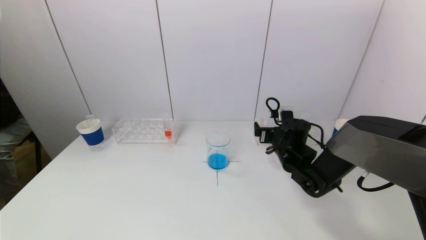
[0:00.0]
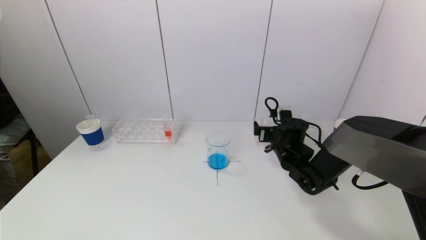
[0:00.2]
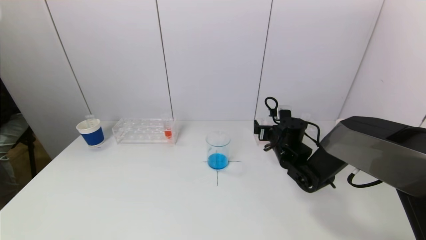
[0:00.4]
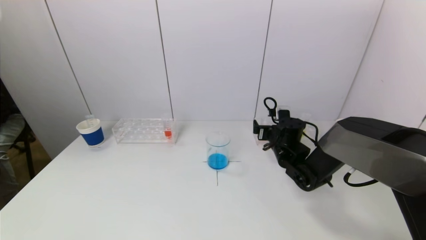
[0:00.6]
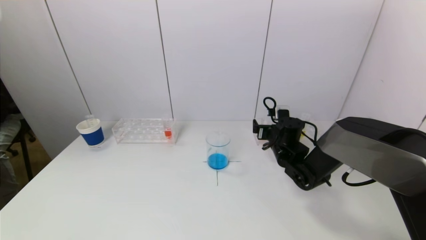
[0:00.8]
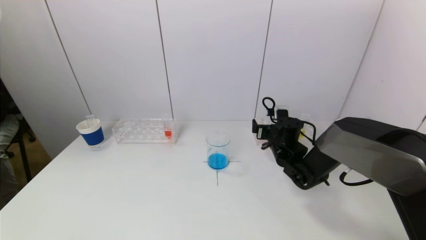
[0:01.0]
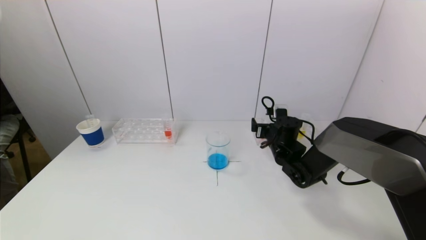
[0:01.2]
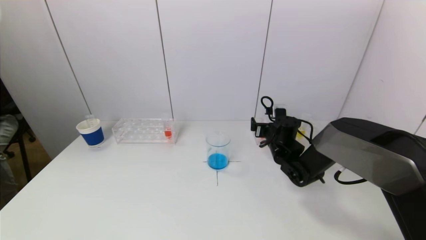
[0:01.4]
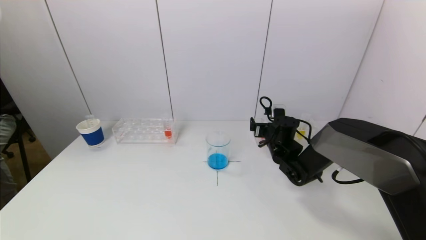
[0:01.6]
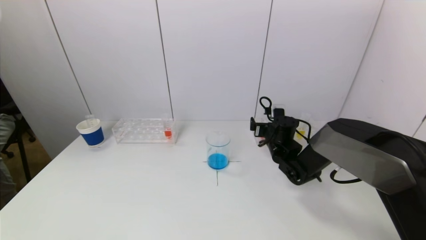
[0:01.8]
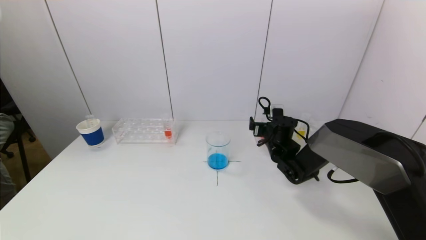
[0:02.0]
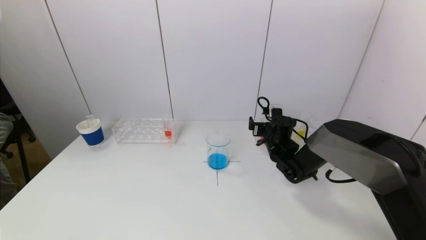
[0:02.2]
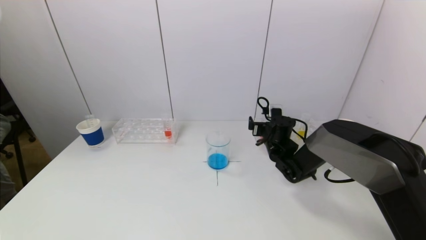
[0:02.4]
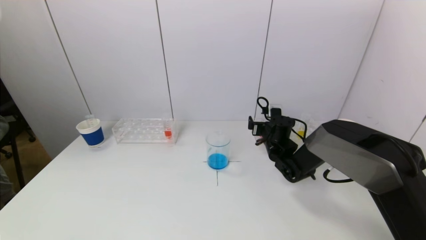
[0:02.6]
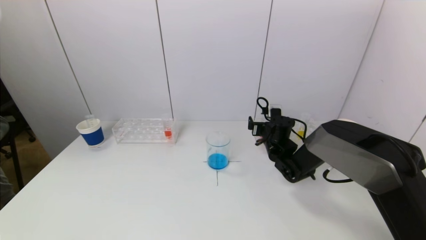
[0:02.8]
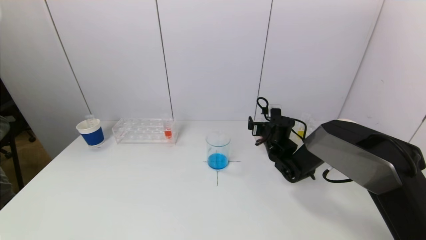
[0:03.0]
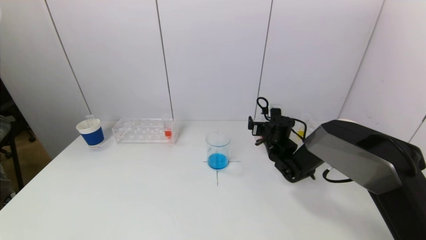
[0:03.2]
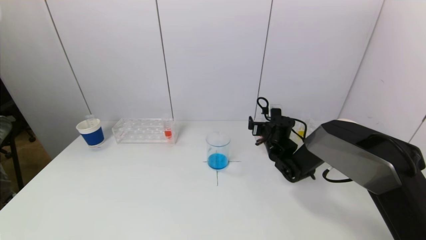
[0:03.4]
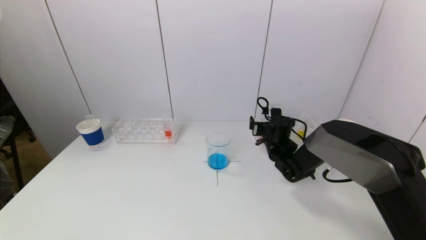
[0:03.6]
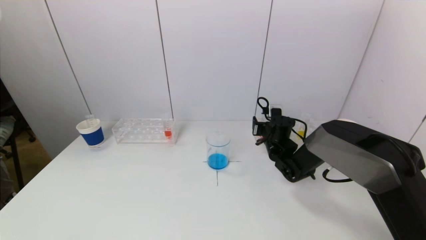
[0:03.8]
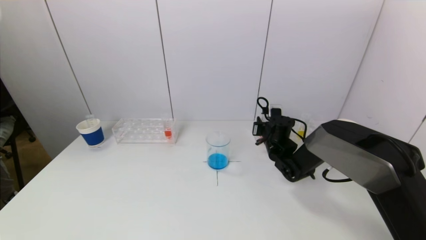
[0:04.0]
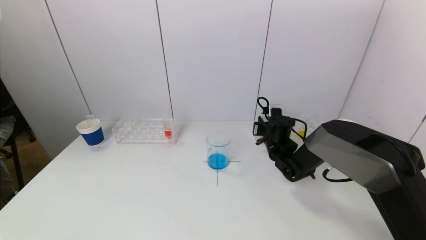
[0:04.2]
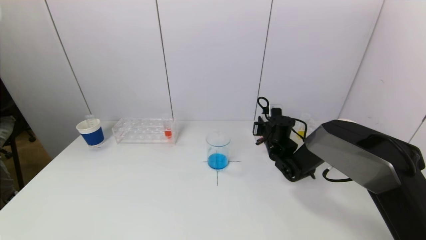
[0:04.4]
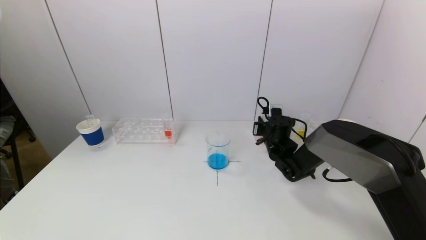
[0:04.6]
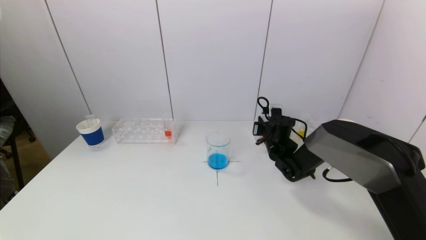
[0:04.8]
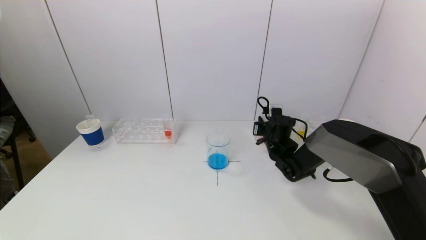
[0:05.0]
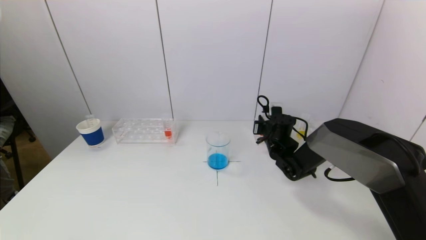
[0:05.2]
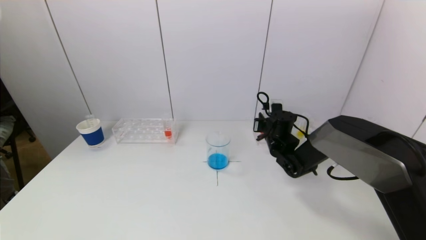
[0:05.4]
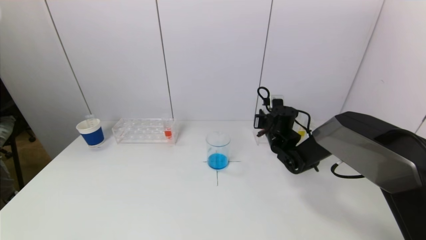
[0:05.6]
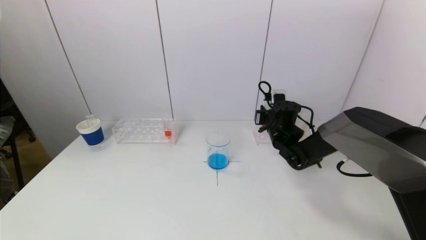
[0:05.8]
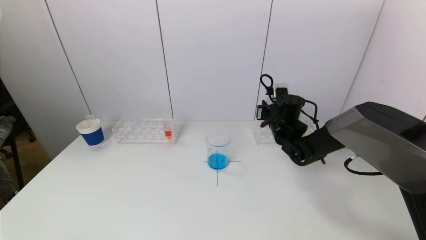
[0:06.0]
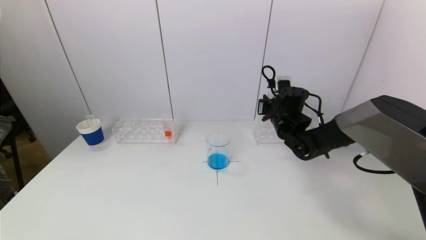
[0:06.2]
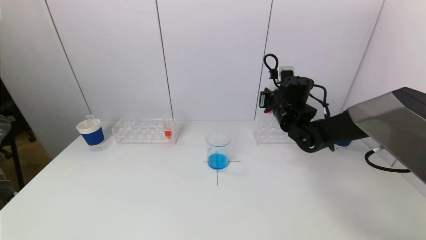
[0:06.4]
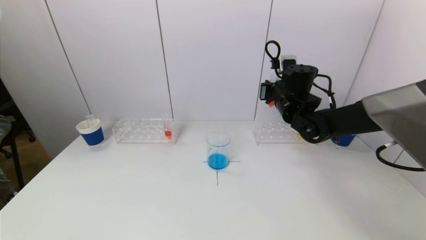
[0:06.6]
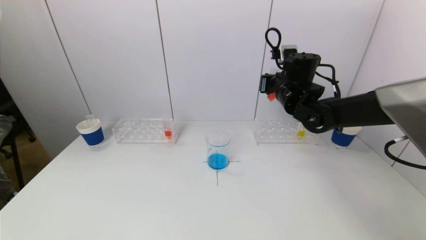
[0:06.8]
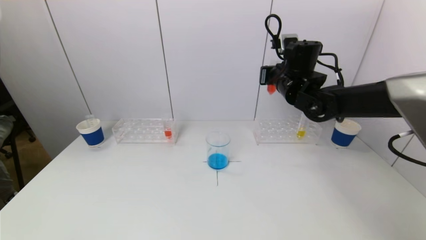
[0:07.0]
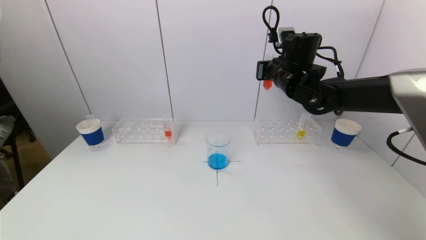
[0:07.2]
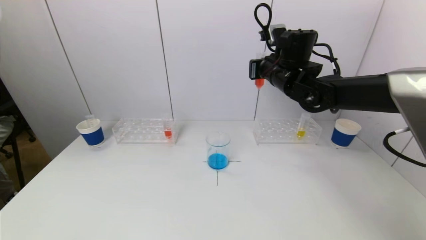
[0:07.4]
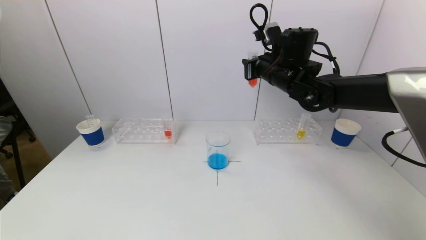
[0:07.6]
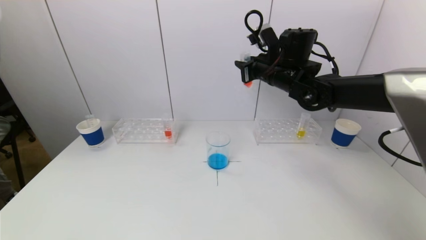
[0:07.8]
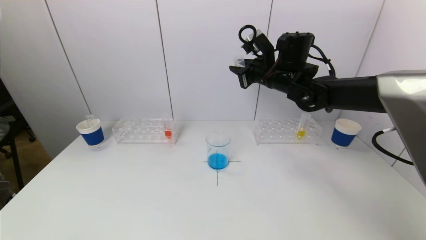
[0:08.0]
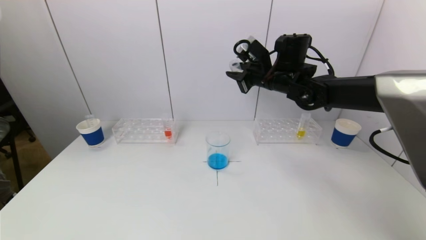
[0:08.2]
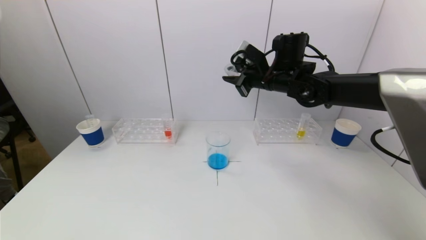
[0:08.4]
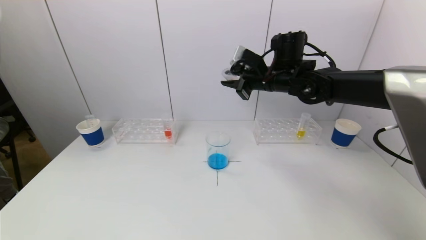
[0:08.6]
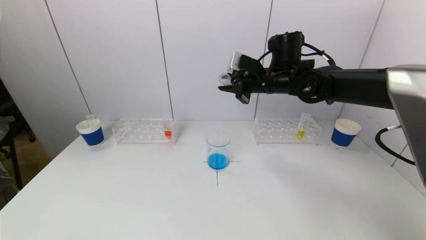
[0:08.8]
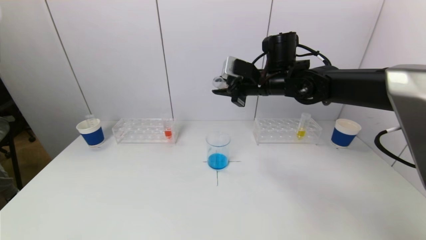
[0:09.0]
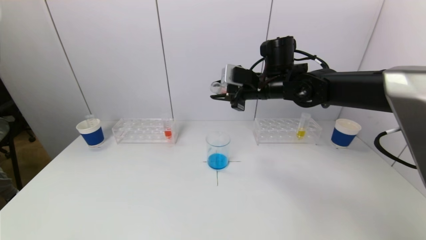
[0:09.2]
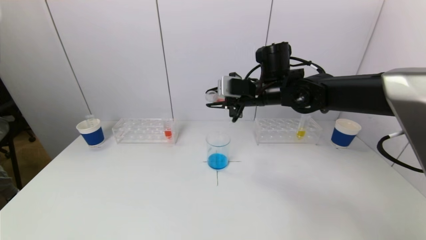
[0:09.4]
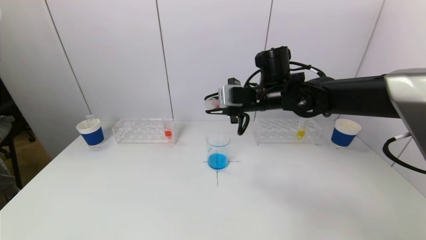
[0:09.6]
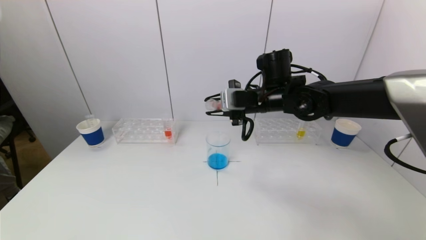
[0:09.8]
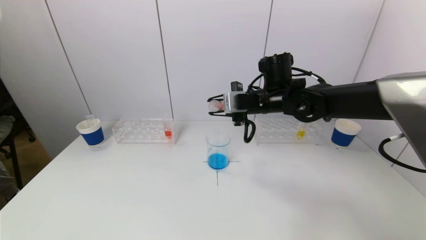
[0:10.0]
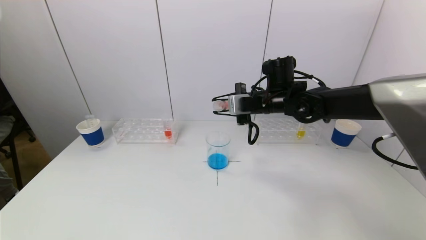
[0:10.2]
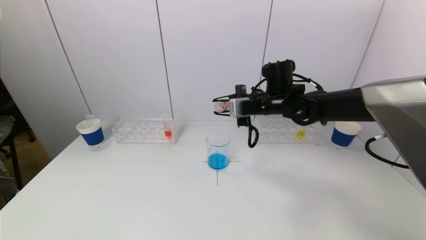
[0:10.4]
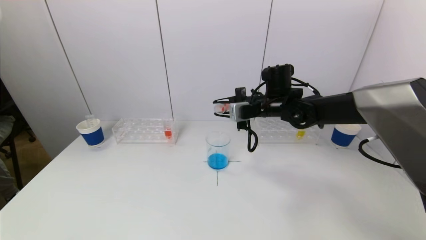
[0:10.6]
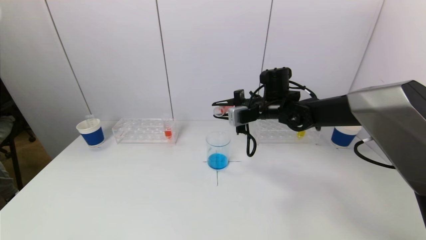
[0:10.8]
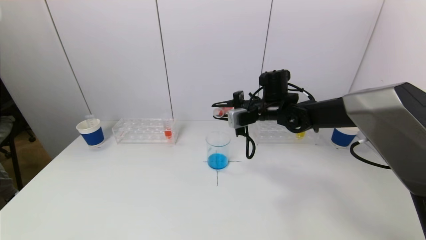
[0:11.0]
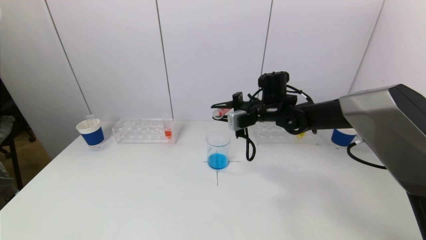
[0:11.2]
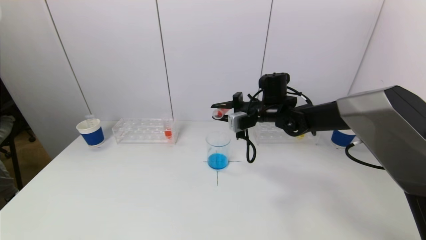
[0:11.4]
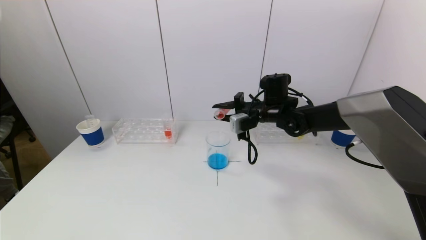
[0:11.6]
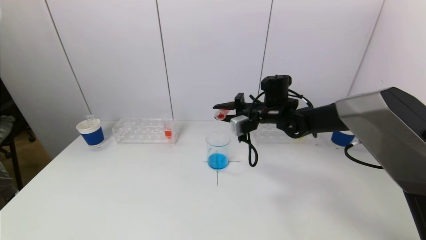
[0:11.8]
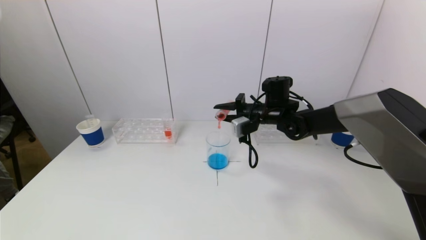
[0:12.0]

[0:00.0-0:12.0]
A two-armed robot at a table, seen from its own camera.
Task of the whole recording: pick up a test tube with pigment on left test tube rack and a test tube with pigment on right test tube rack by grippers and pour them into the beaker.
Step, 0:00.0 to 0:04.2: Grasp the red reagent with the right gripper.
0:00.0 to 0:03.0: There are only small adjustments of the grippers.
0:03.0 to 0:04.4: The right gripper closes its fingers.
0:04.4 to 0:06.0: The right gripper goes roughly 10 cm upward.
0:06.0 to 0:07.6: The right gripper moves upward, roughly 15 cm.
0:09.0 to 0:10.4: The right gripper is displaced downward by roughly 5 cm.
0:10.4 to 0:12.0: The grippers stay close to where they were, moving slightly.

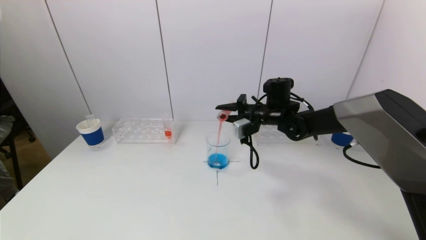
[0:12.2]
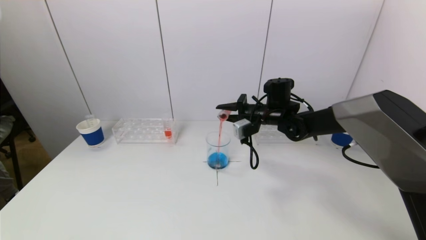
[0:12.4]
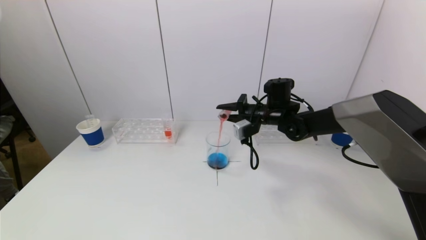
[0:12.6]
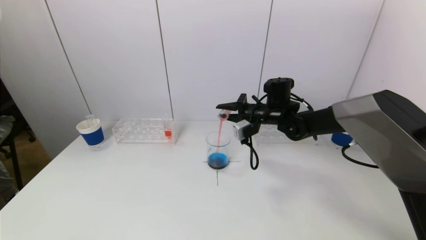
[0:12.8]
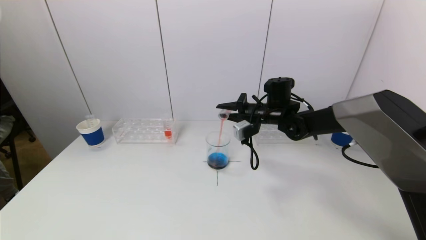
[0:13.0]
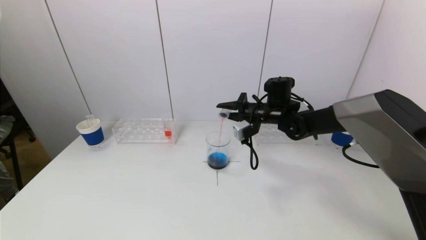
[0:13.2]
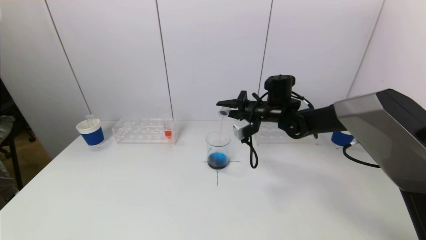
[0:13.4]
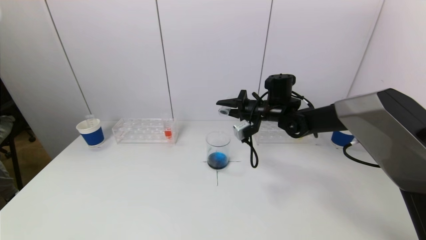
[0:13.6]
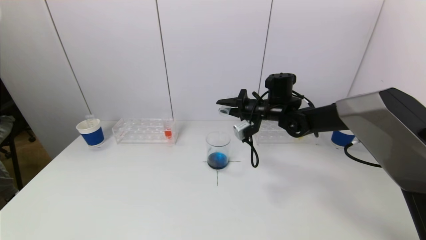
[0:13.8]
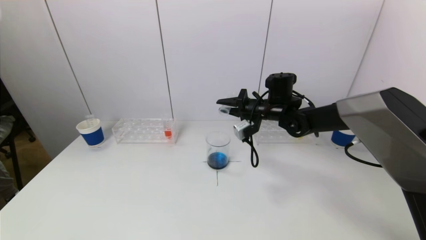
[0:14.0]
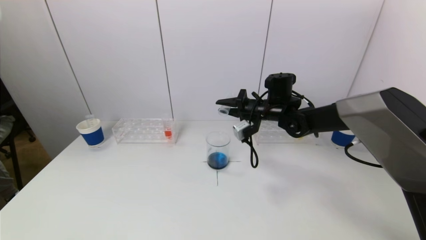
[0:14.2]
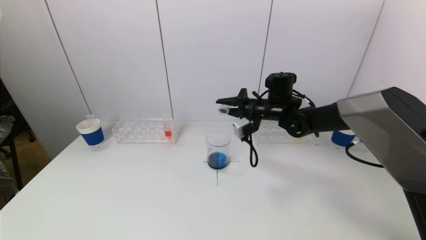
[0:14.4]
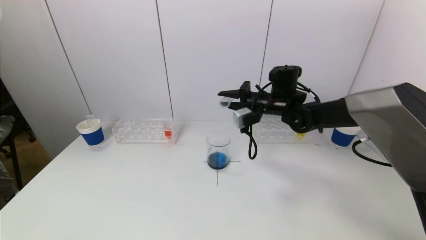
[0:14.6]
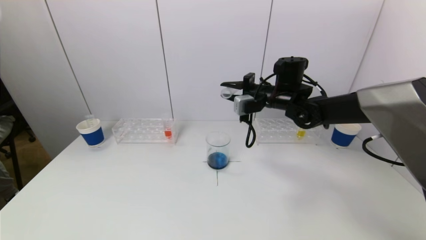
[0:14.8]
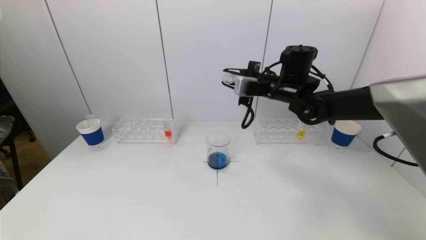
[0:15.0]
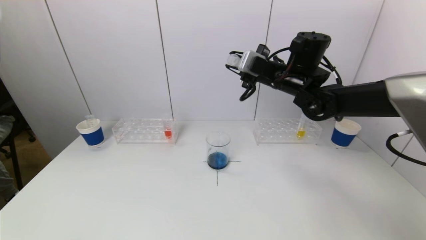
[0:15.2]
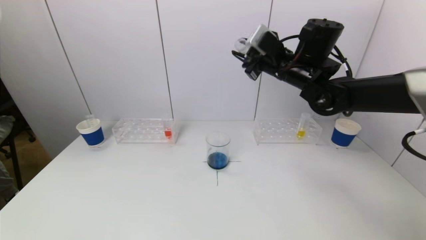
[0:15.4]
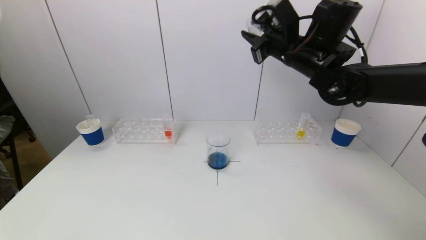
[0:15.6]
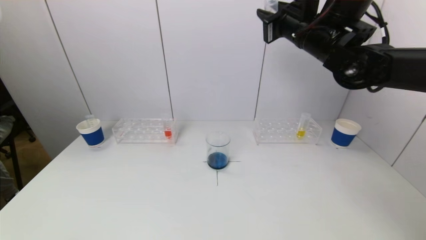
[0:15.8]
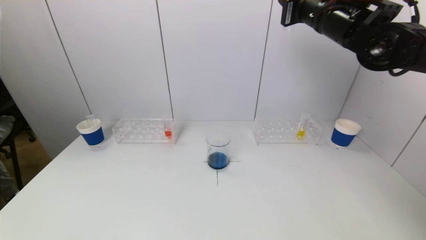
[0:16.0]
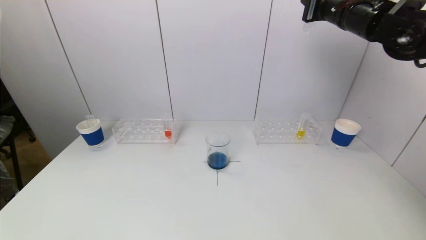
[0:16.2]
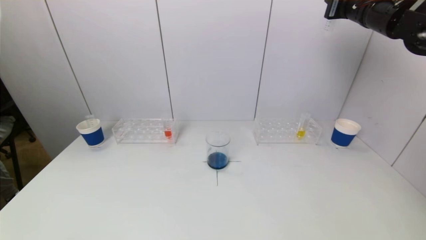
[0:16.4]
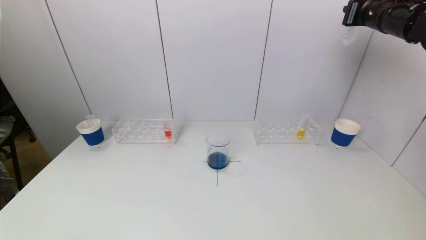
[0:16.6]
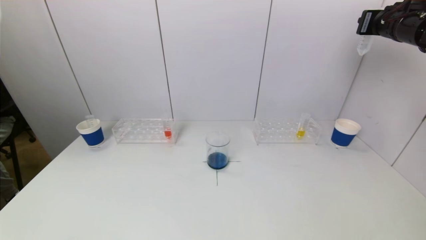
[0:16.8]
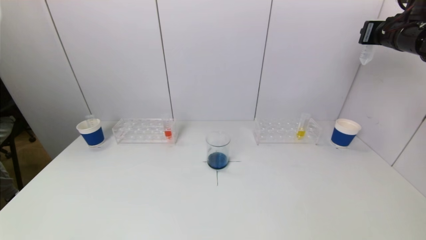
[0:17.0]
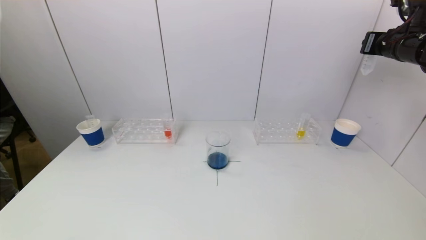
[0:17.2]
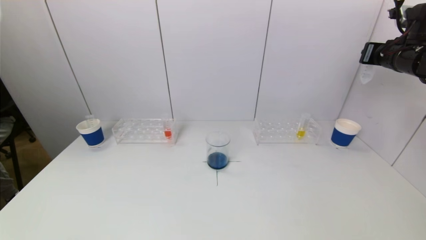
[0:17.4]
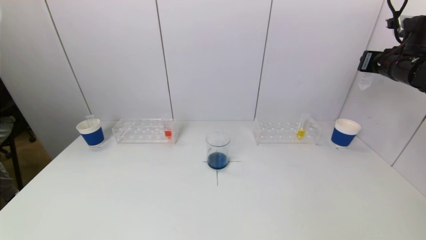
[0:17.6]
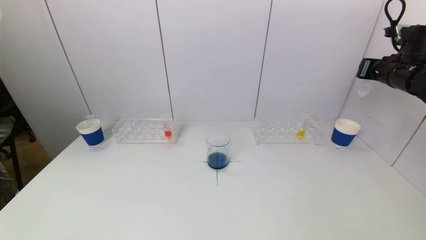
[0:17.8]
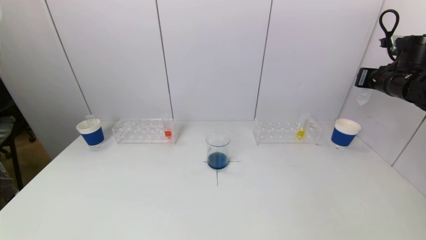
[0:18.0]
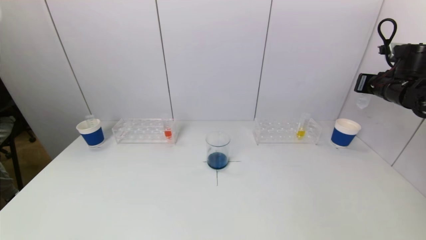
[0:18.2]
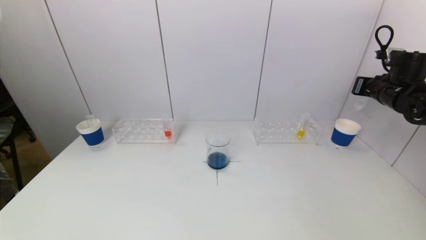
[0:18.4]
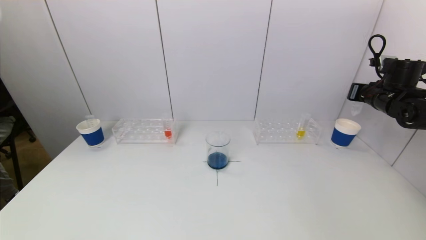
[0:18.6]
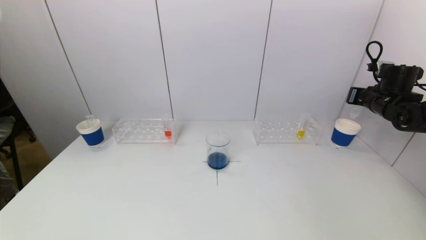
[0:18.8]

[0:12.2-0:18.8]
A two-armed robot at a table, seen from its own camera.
Task of the whole recording: pick up a test tube with pigment on left test tube rack and a test tube with pigment on right test tube rack by grippers and pour them into the beaker.
0:12.2 to 0:13.8: The grippers move only a little.
0:13.8 to 0:15.4: The right gripper goes approximately 15 cm upward.
0:15.4 to 0:17.2: The right gripper heads to the right, covering about 20 cm.
0:17.2 to 0:18.8: The right gripper moves downward, about 15 cm.
